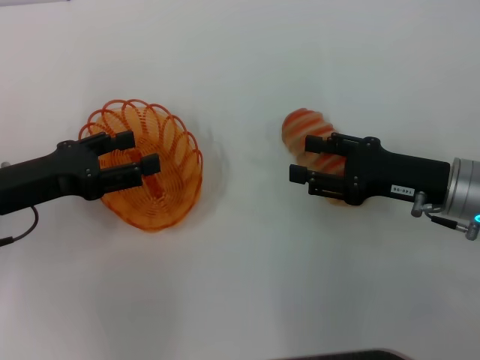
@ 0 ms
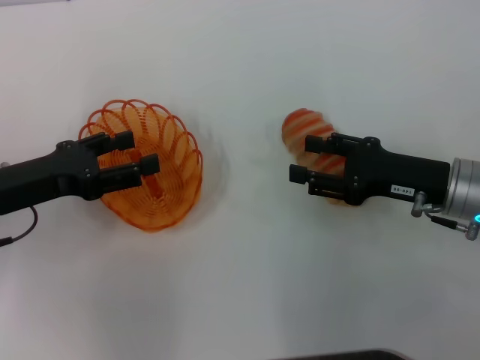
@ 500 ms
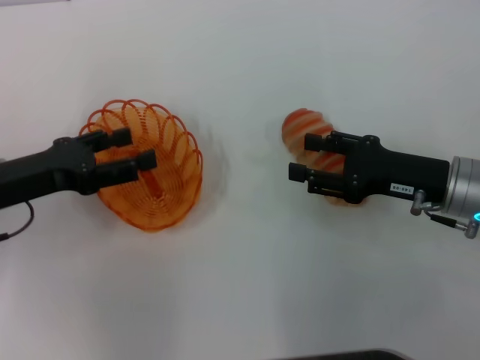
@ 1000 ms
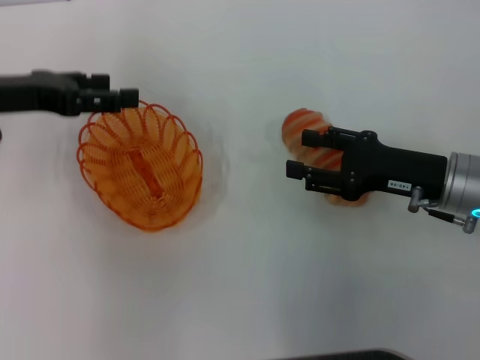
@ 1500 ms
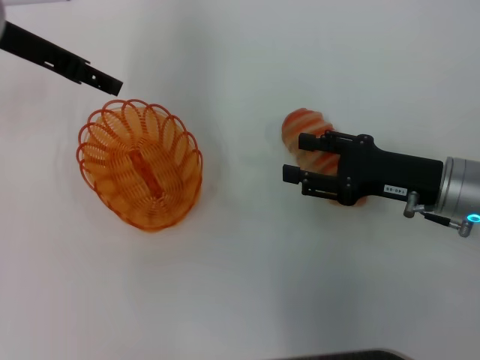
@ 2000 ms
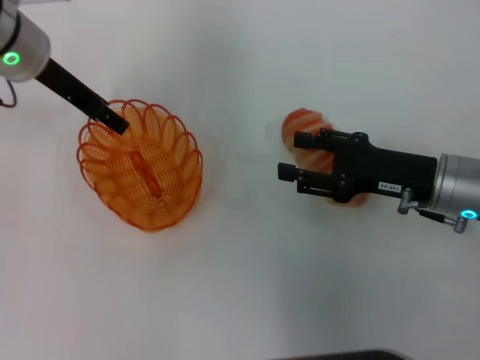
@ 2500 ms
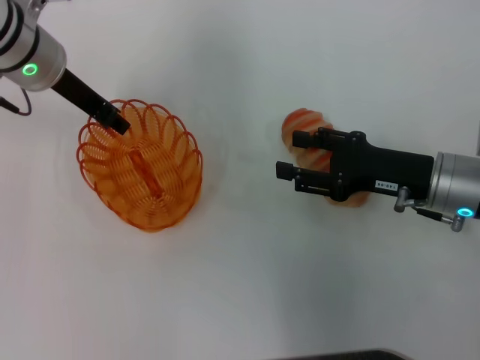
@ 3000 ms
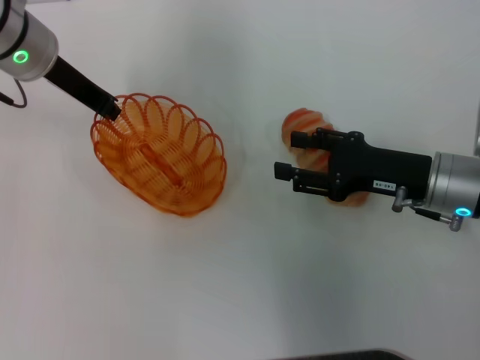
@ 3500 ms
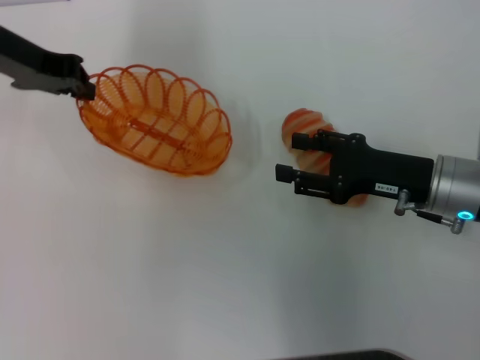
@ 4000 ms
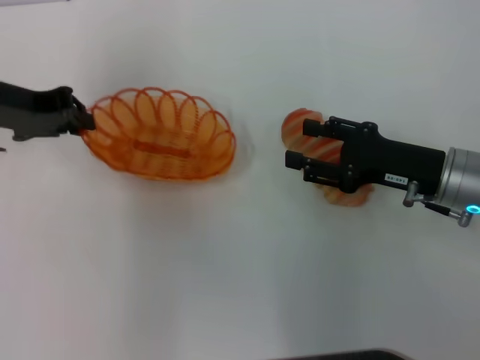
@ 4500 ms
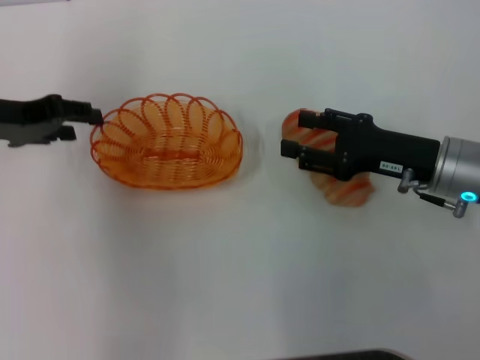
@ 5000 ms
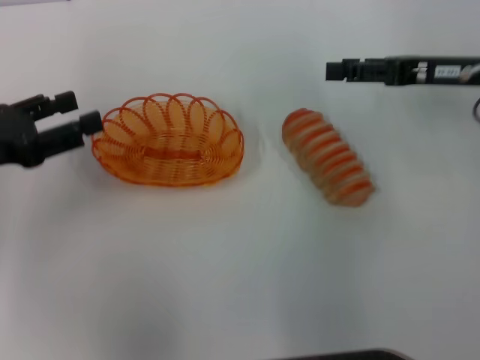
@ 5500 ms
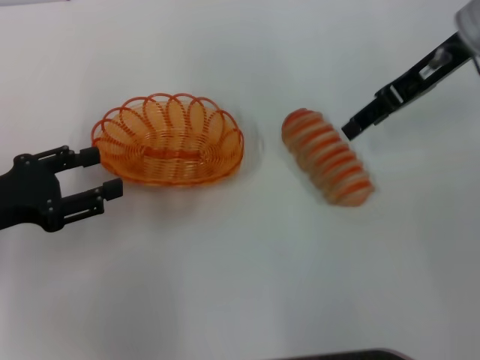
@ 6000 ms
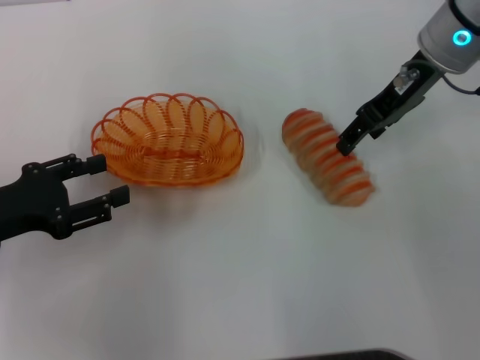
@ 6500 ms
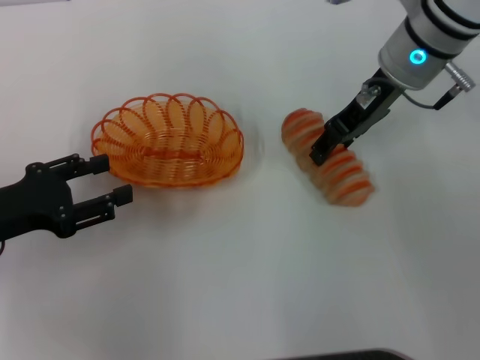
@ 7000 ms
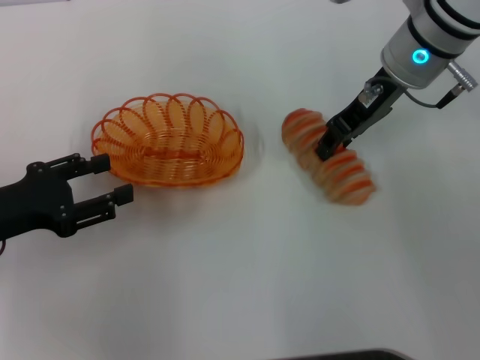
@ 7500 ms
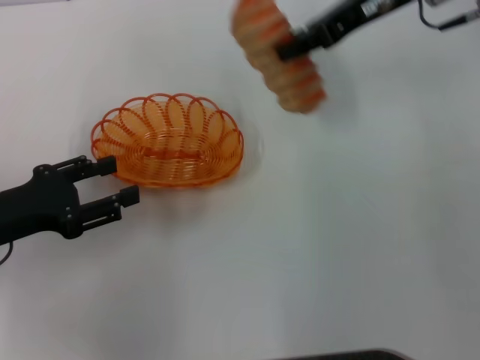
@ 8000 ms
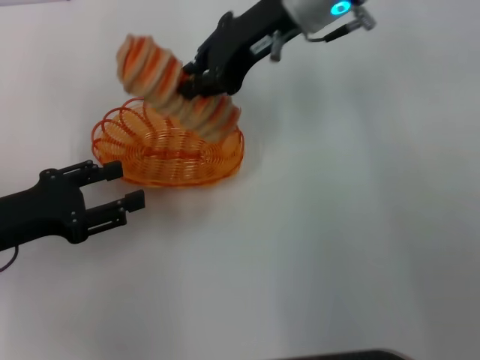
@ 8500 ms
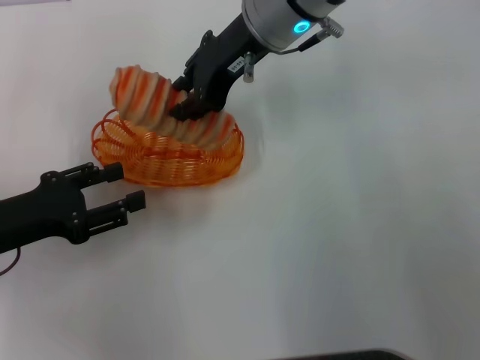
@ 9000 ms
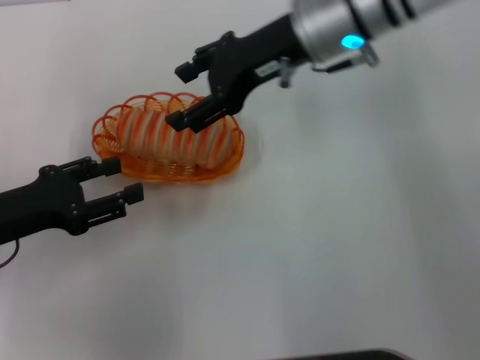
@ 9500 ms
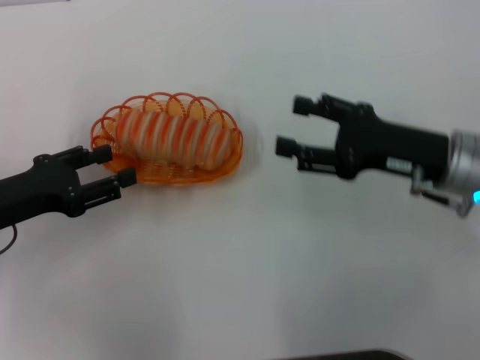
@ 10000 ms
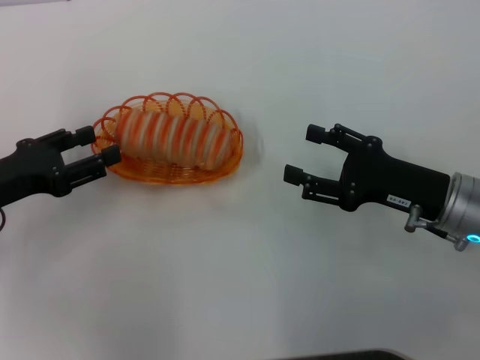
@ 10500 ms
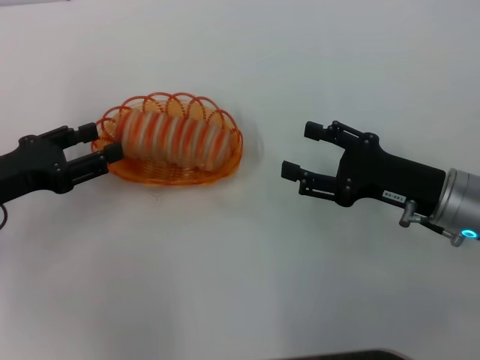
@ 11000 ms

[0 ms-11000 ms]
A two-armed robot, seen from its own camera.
Step, 0 ms to 3500 ms: Pick up the basket with the left gripper.
Step, 4000 ms to 5000 ms: Place the basket in the center of view with the left gripper.
Step, 5500 ms to 7500 ms: Pick up the long bread with the right gripper.
Step, 8000 ms to 9000 ms: Place the long bread into the basket with the right gripper.
0 ms to 2000 ms: The left gripper is displaced forward and upward by about 20 cm.
2000 ms to 3500 ms: The left gripper ends up about 5 cm from where it was, and closes.
3500 ms to 5500 ms: The right gripper shifts some 10 cm upward, forward and to the right. Meanwhile the left gripper travels backward and to the left by about 20 cm, and opens up.
5500 ms to 7500 ms: The right gripper moves to the left and forward, roughly 10 cm. Meanwhile the left gripper changes place by roughly 5 cm.
7500 ms to 9000 ms: The right gripper heads to the left, covering some 10 cm.
9000 ms to 11000 ms: The right gripper goes some 30 cm to the right, backward and downward, and opens its fingers.

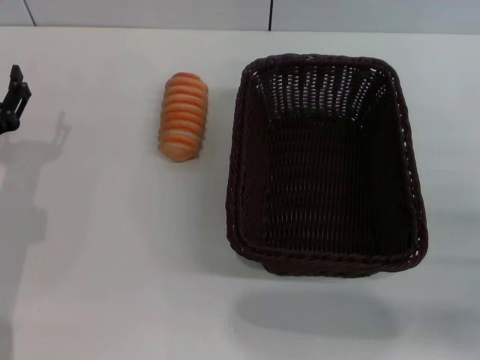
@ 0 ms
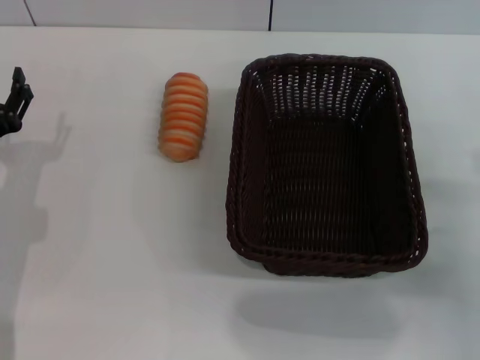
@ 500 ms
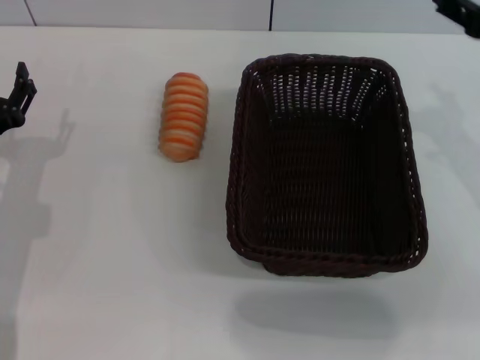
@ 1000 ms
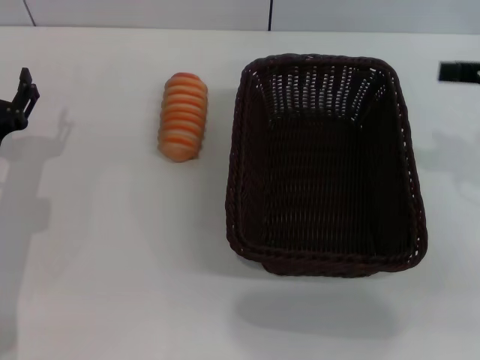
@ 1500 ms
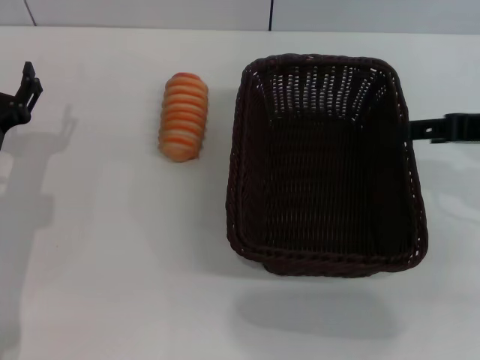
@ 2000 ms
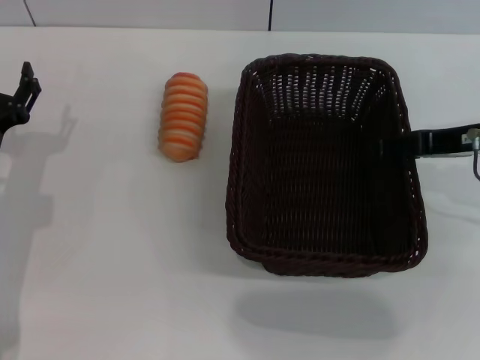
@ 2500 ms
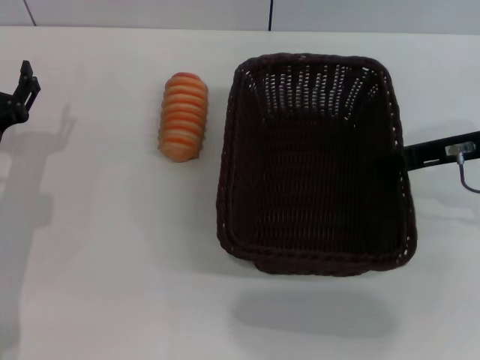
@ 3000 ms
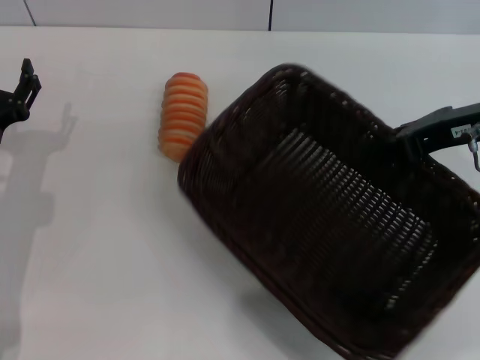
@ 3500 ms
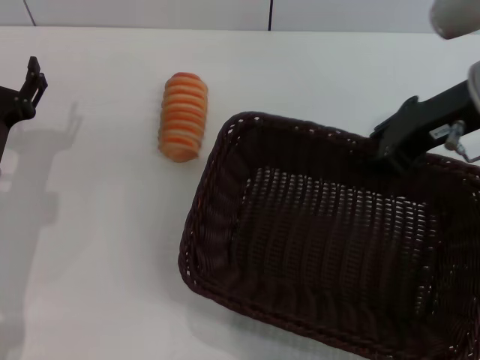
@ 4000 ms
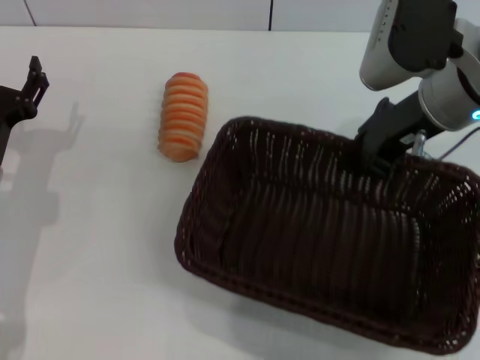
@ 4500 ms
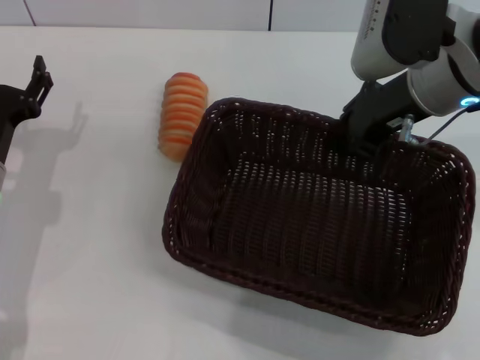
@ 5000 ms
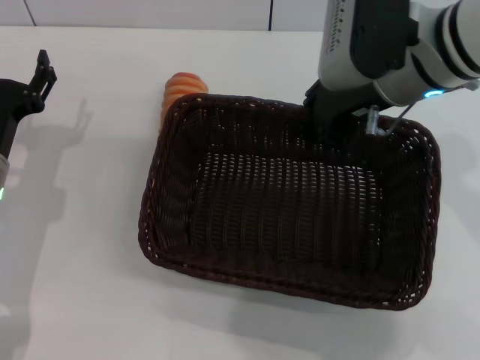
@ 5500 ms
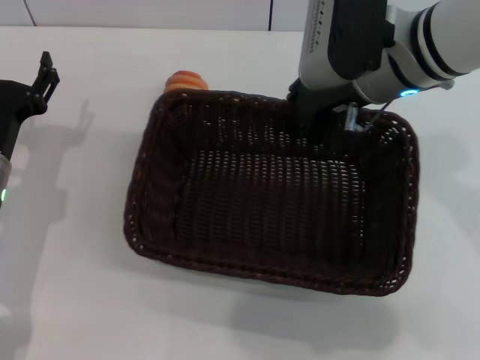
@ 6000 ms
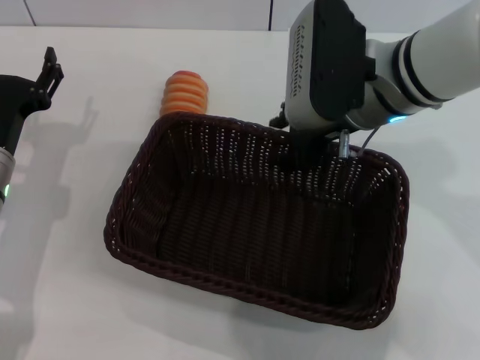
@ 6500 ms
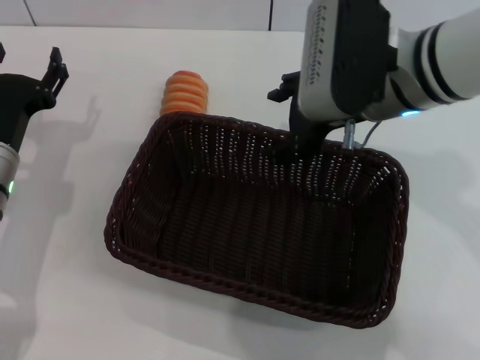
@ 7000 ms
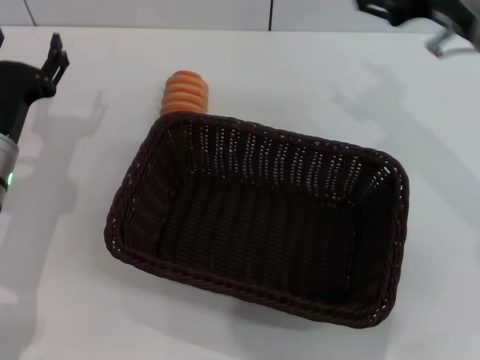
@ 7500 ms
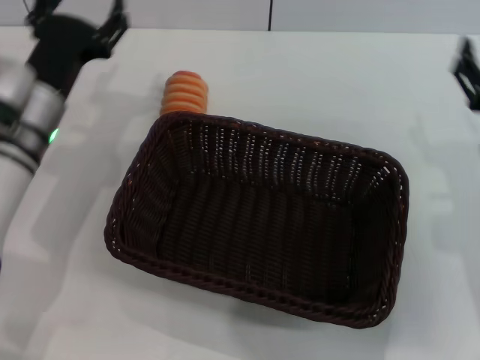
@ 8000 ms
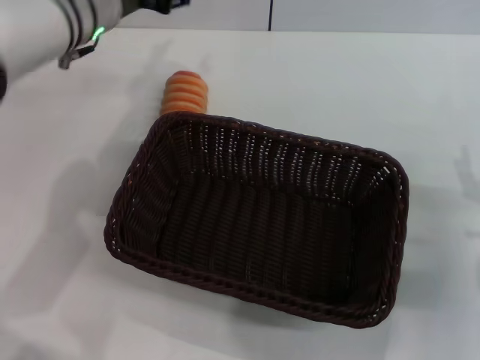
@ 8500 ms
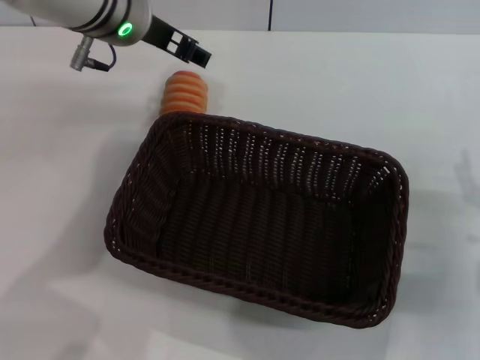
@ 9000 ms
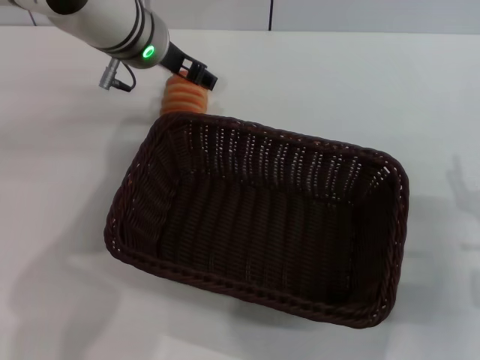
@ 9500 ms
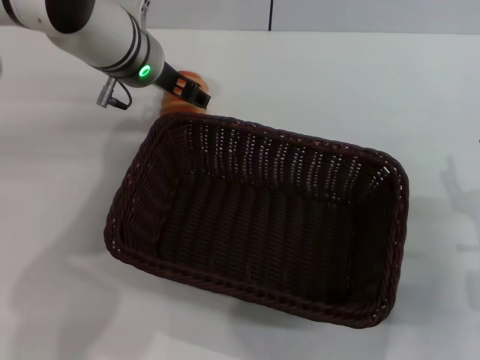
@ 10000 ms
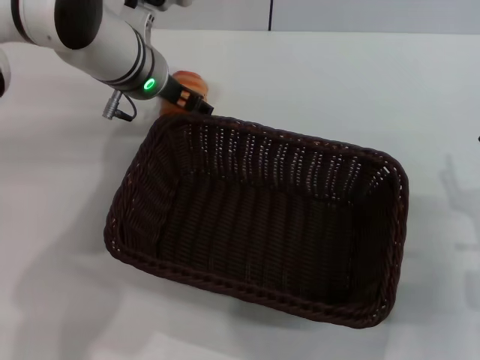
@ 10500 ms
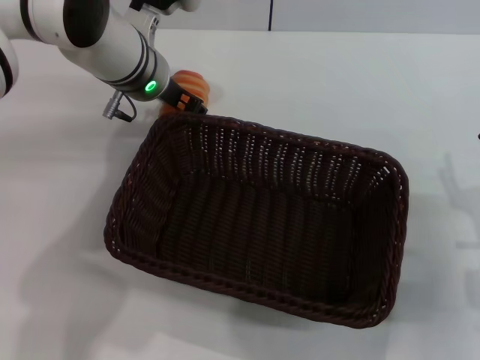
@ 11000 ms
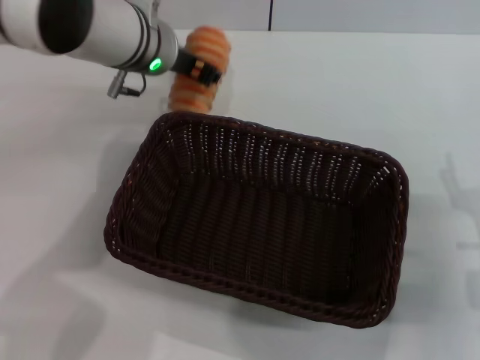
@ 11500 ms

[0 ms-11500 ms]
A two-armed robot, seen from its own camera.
Step, 0 ms to 3000 ms: Pick up the dark basket with the right gripper.
Step, 3500 ms to 6500 ms: Place the dark basket in the center of view with the right gripper.
Step, 7000 ms to 11500 ms: Pick up the long bread with the left gripper.
0 ms to 2000 ms: The right gripper shifts about 20 cm upward and forward.
2000 ms to 4000 ms: The right gripper shifts about 10 cm to the left, and closes up.
4000 ms to 6000 ms: The right gripper heads to the left, covering approximately 10 cm.
6000 ms to 7500 ms: The right gripper travels to the right by some 10 cm, and opens up.
7500 ms to 9500 ms: The left gripper shifts approximately 25 cm to the right, upward and forward. The right gripper shifts approximately 20 cm downward and backward.
9500 ms to 11500 ms: The left gripper closes.

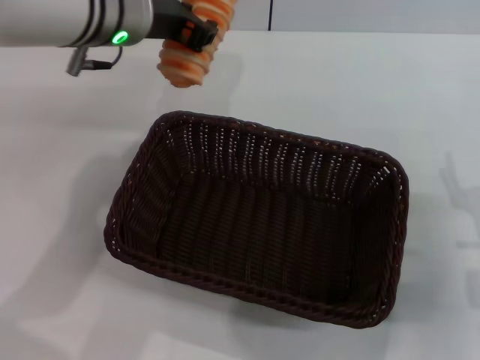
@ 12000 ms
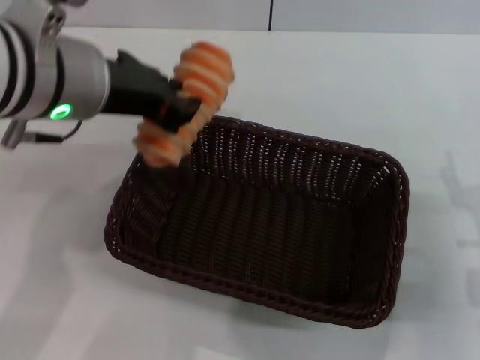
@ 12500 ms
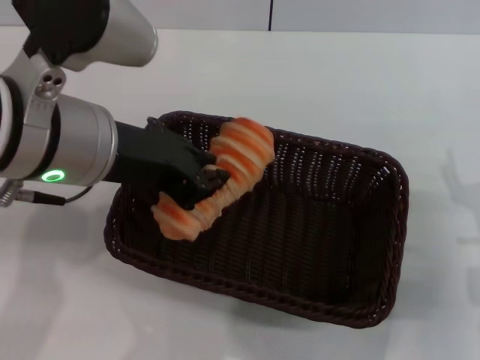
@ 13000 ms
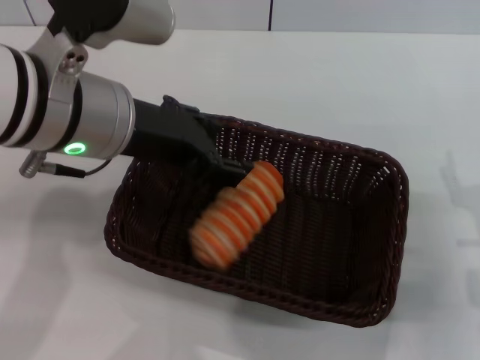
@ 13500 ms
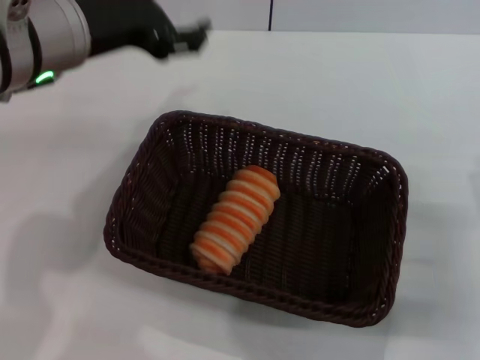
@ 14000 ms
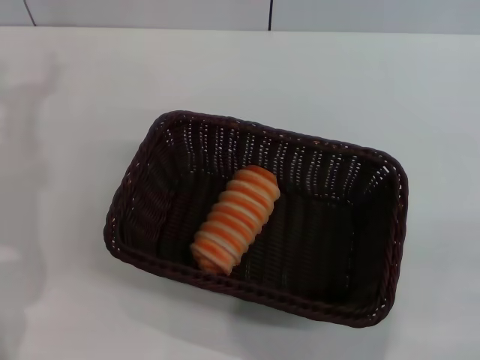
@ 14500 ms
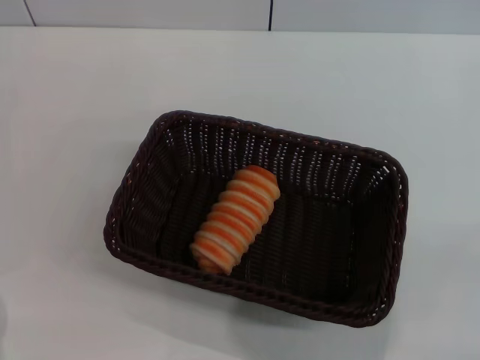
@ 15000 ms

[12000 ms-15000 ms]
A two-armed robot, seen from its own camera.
Step, 12000 ms to 13500 ms: Place the long bread into the dark basket with the left gripper.
12000 ms to 13500 ms: The left gripper goes approximately 10 cm backward.
13500 ms to 15000 ms: The left gripper goes about 25 cm to the left and downward, and opens its fingers. Meanwhile the right gripper is displaced to the right and backward by about 10 cm.
